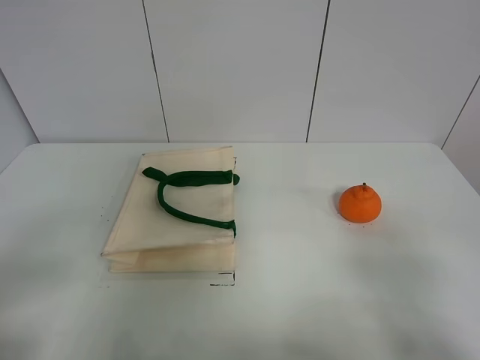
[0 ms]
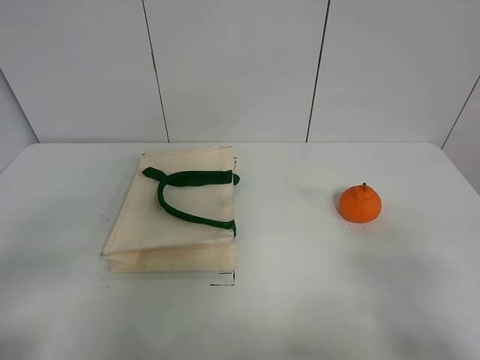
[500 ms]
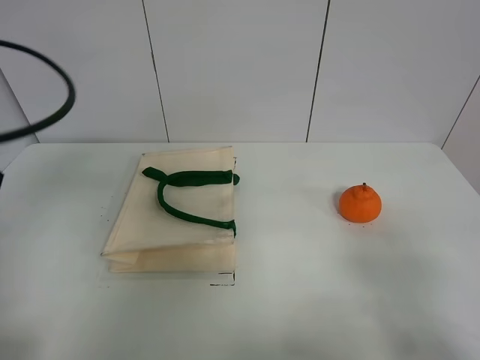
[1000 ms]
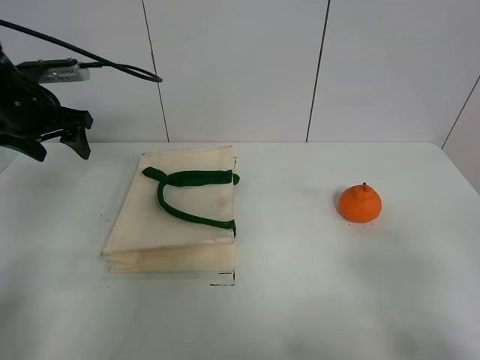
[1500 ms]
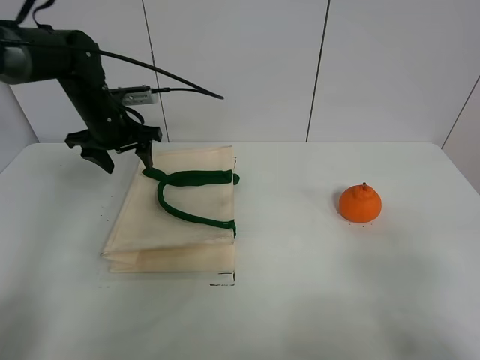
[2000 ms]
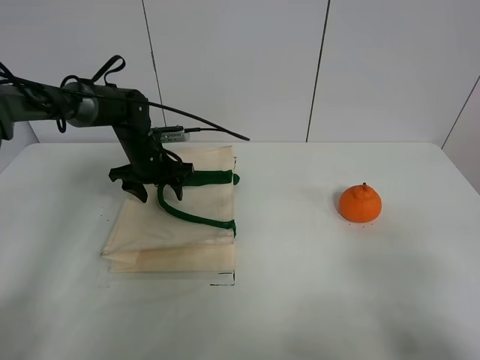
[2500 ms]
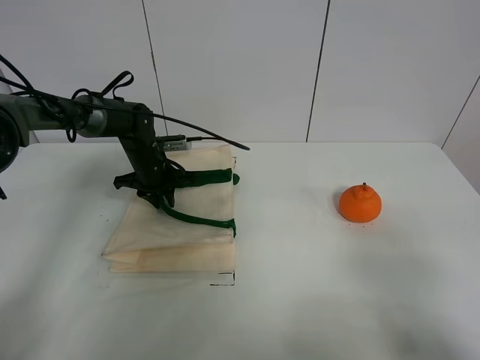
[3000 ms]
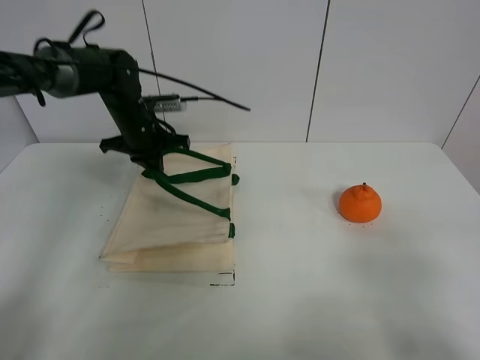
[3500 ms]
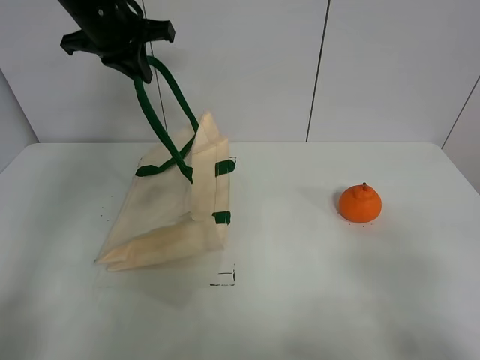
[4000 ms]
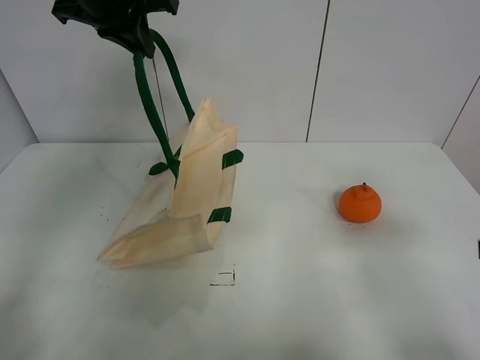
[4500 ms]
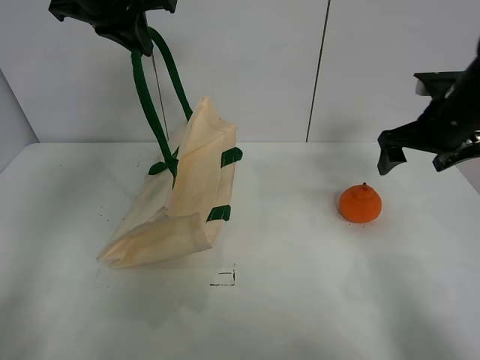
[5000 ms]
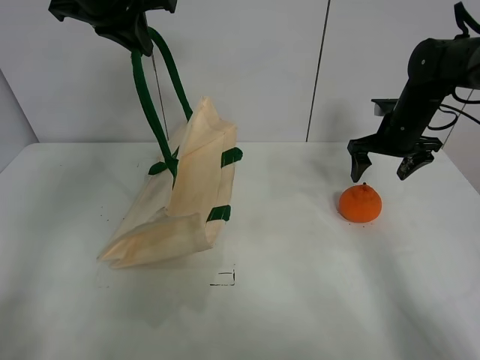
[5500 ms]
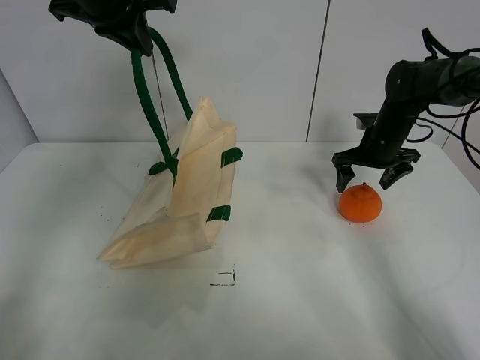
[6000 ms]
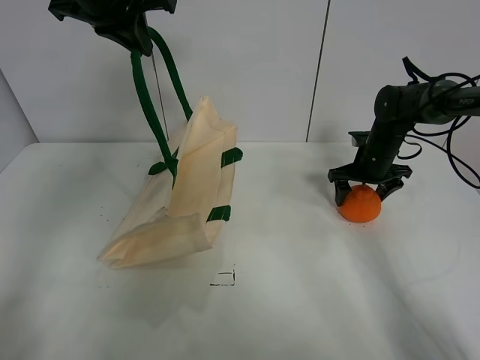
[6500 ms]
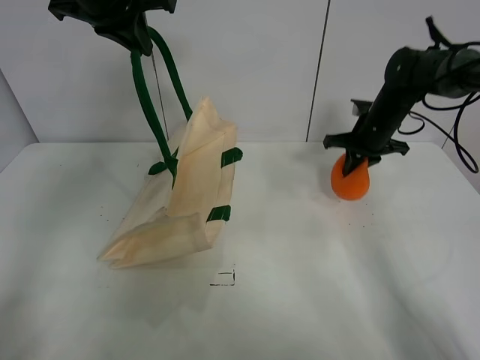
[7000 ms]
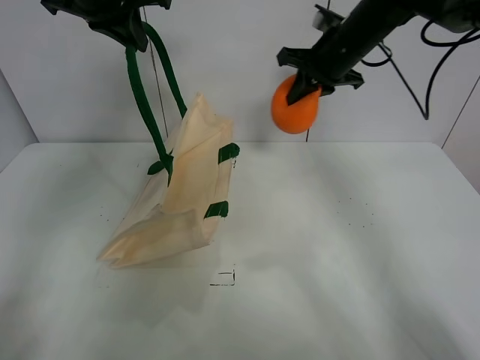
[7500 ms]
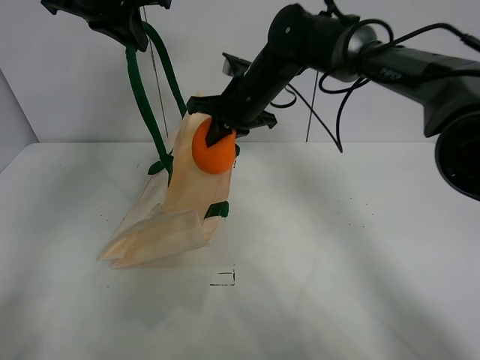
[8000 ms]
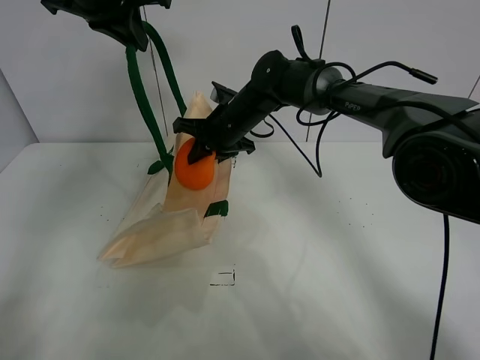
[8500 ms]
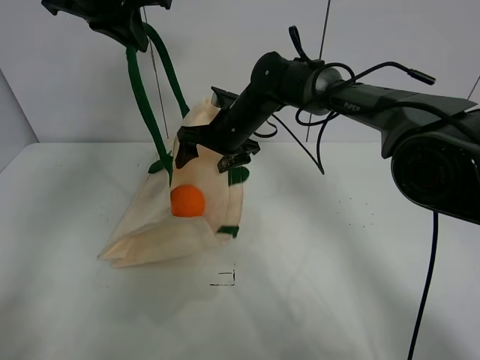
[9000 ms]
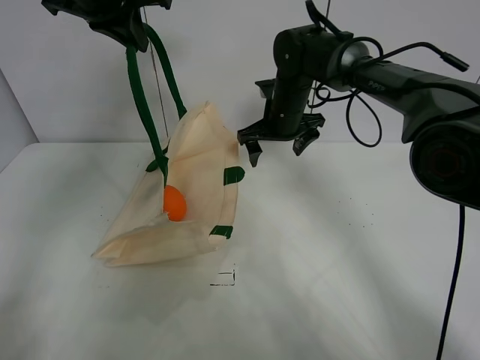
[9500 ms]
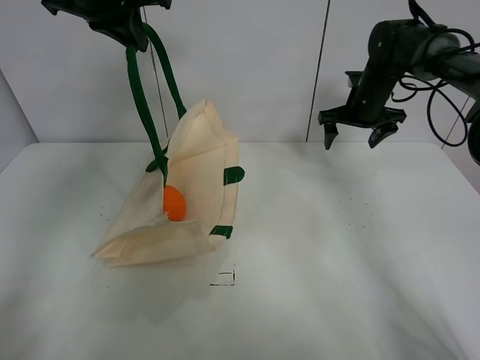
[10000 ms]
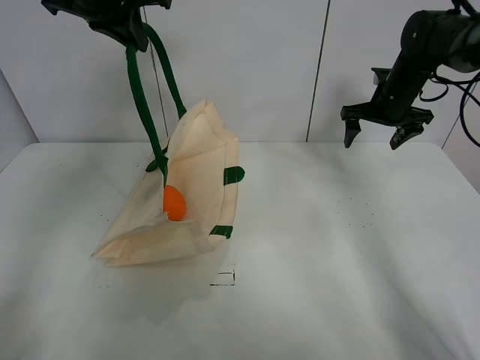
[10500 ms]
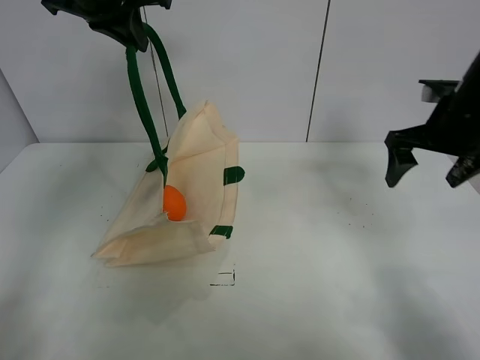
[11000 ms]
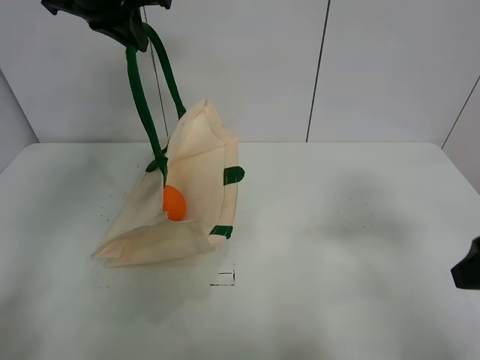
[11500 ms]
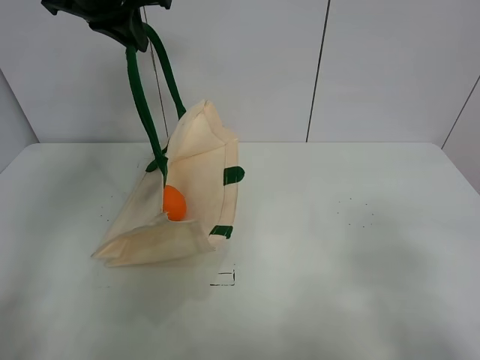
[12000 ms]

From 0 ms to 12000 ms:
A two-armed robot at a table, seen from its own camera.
Task of the whole recording: open the white linen bag and put the orange in the bag.
Step, from 0 ms to 4000 ms: Lift the handbag with left gripper.
Step, from 4500 ms to 6500 ms: Grasp the orange with right gripper.
Step, from 7000 ms to 9000 ms: Place the orange in the handbag with right gripper.
From 0 ms to 2000 ms: The left gripper shifts roughly 40 cm forward.
From 2000 ms to 4000 ms: The left gripper goes some 15 cm upward, and closes up.
From 4000 ms to 6000 ms: The right gripper heads forward, covering about 40 cm.
From 6000 ms to 8000 ms: The right gripper travels to the left by some 25 cm, and closes up.
From 8000 ms to 10000 ms: The right gripper goes about 25 cm to the right, and opens its fingers.
From 10000 ms to 12000 ms: The right gripper heads backward, covering some 50 cm.

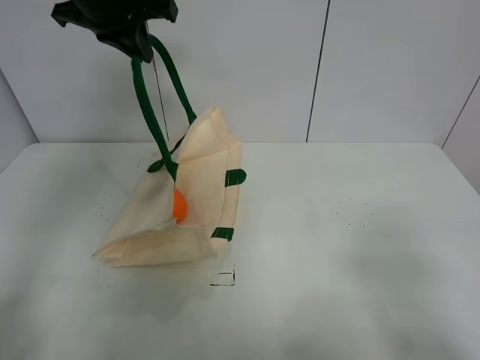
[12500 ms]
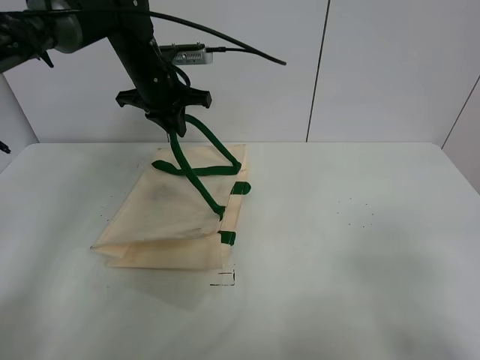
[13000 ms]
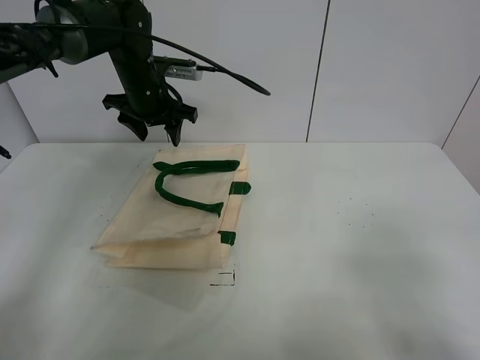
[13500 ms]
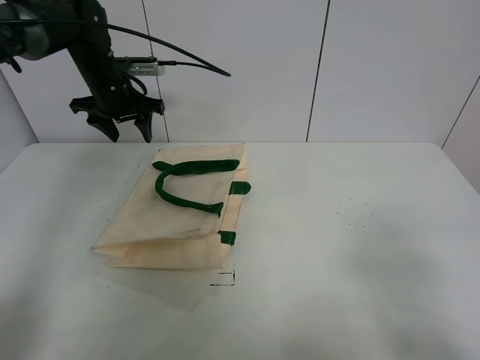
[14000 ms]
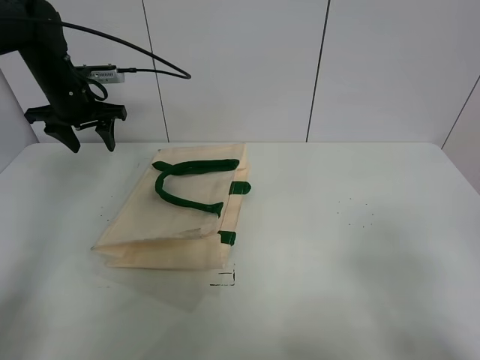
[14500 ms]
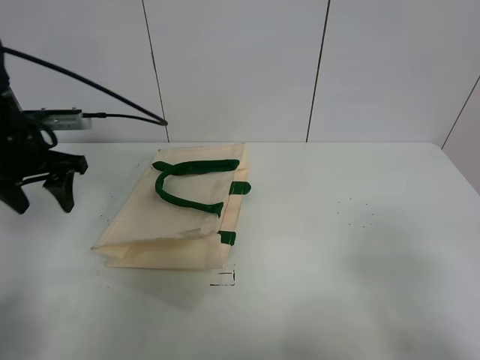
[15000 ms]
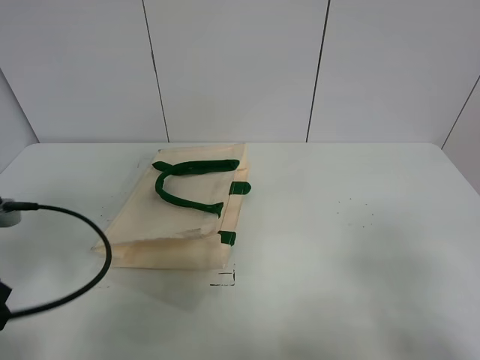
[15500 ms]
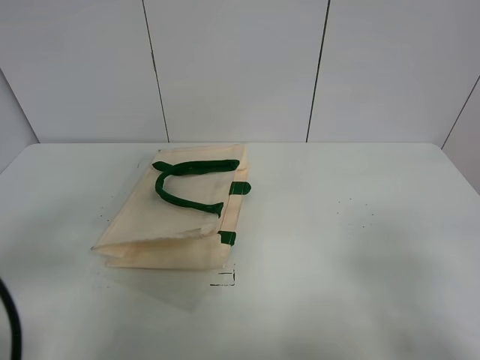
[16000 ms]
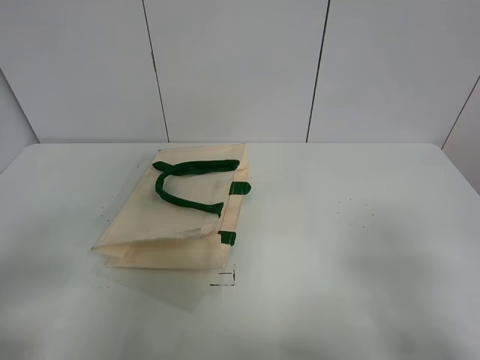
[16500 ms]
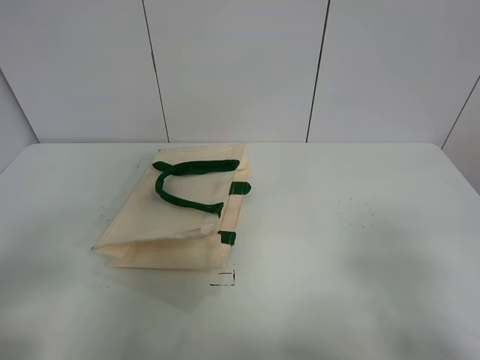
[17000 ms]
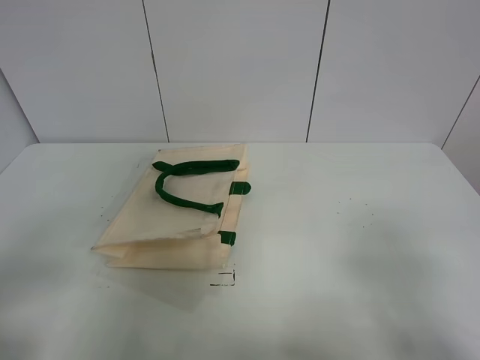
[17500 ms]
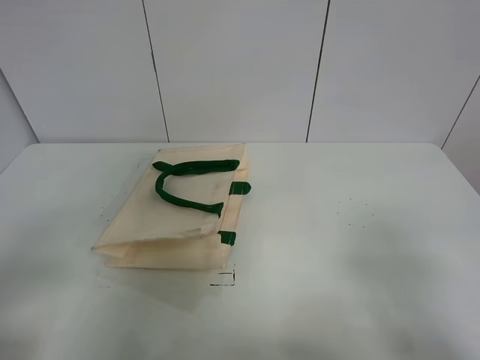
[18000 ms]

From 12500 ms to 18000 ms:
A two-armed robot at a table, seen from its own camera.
Task of the whole recording: open the white linen bag and put the orange in the bag.
From 12500 ms to 14500 ms: The left gripper goes roughly 20 cm downward and to the left, and opens.
From 14500 ms to 16000 ms: The left gripper travels backward by approximately 40 cm.
